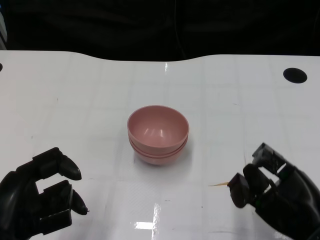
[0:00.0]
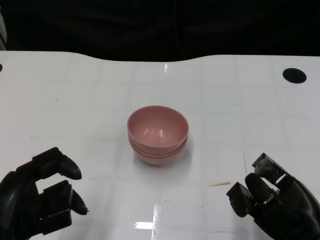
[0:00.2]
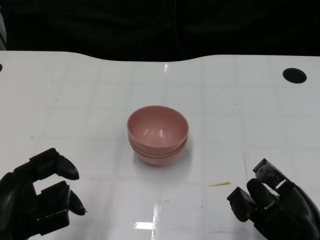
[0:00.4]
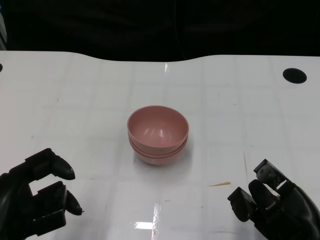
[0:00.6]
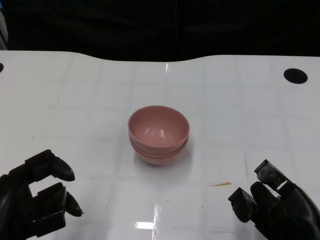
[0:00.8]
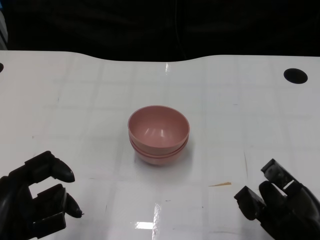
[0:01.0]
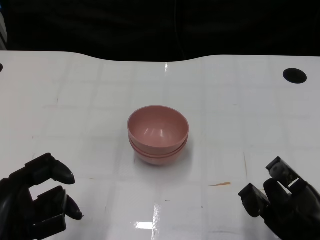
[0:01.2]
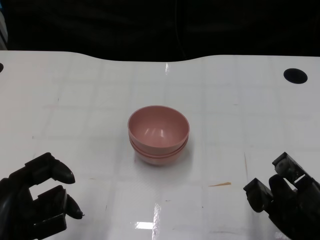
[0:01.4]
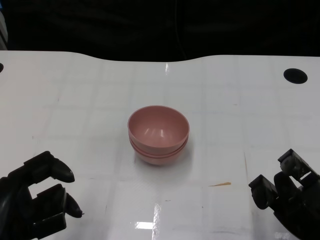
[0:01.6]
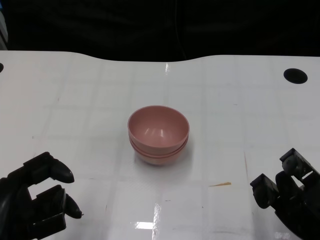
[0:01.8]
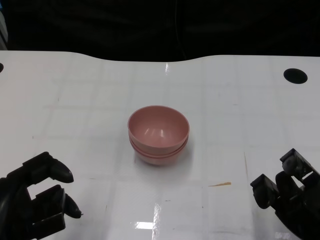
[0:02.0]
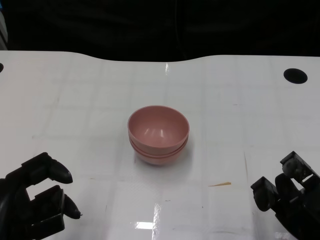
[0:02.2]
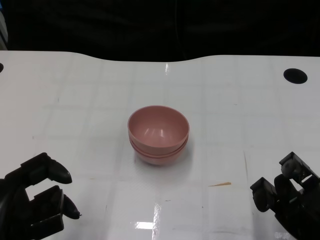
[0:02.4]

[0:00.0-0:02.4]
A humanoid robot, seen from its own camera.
Task of the whole recording: Pick up the bowl on one side of the table and place it on top of the middle bowl, then pick up the bowl on the other side of the table and place it on top of the middle bowls.
0:00.0 to 0:02.4: The hands make only small movements.
